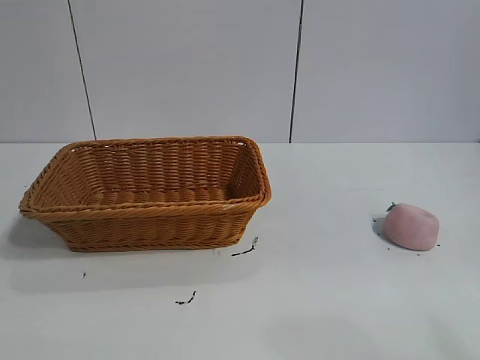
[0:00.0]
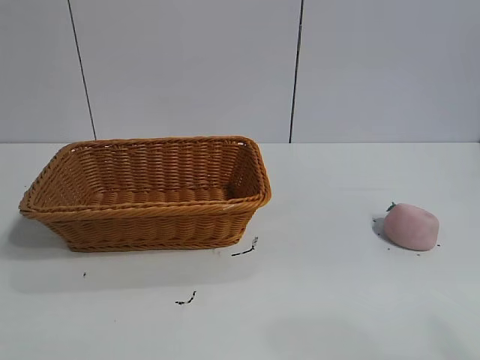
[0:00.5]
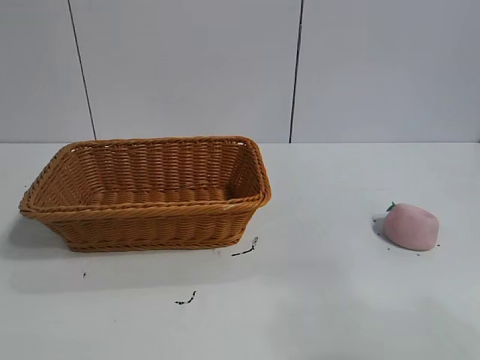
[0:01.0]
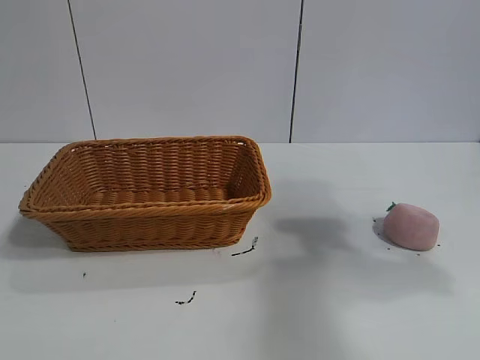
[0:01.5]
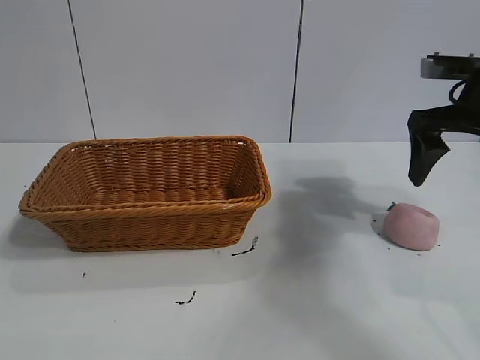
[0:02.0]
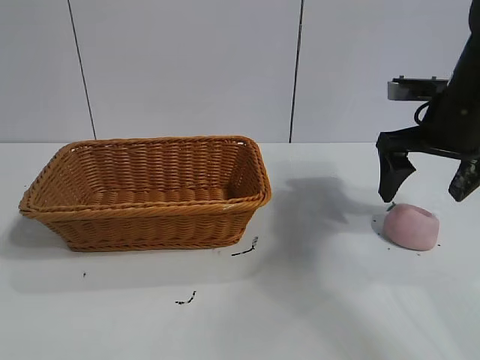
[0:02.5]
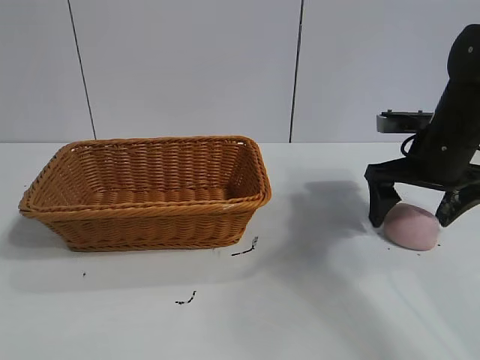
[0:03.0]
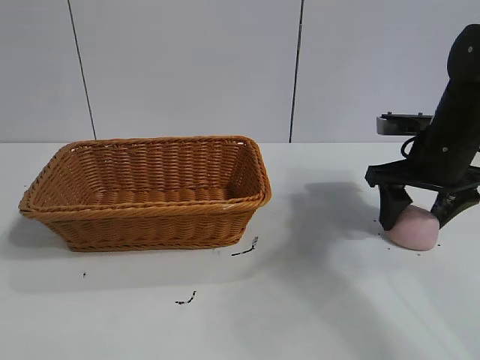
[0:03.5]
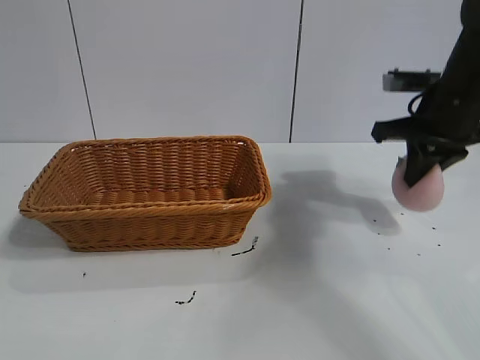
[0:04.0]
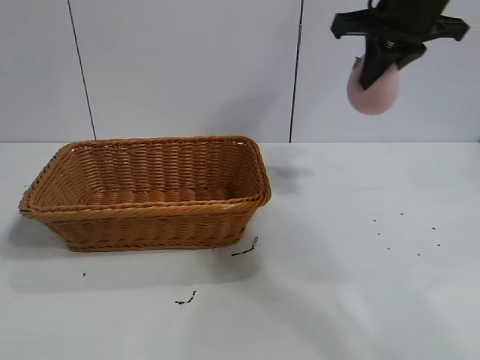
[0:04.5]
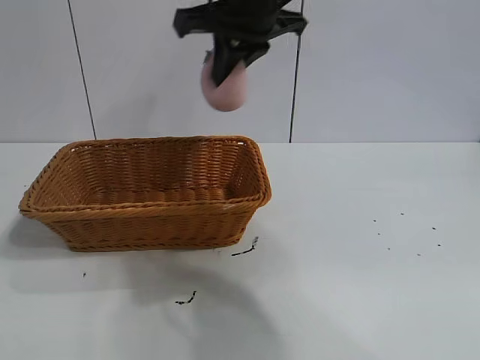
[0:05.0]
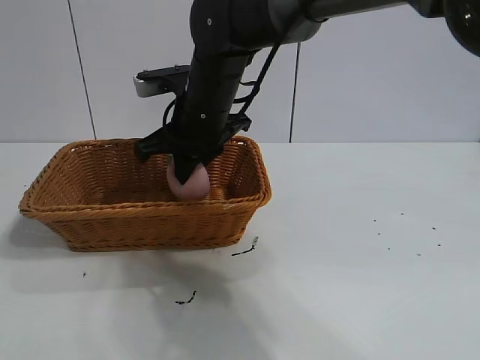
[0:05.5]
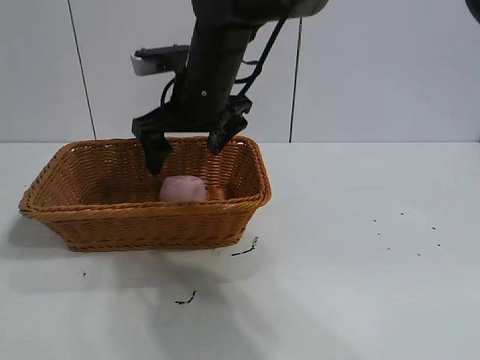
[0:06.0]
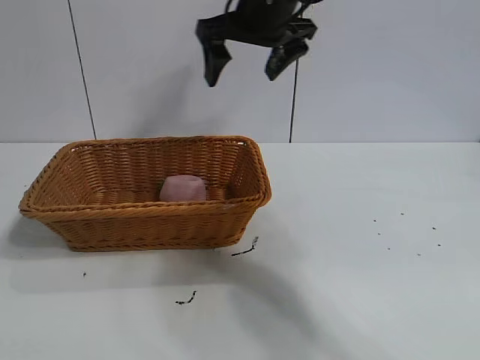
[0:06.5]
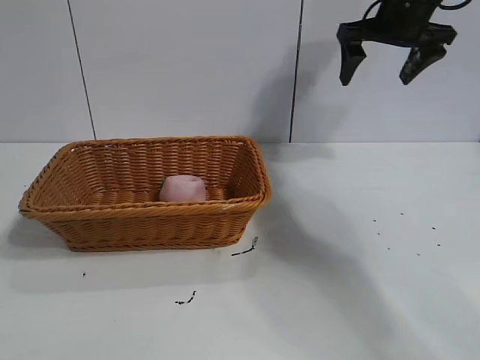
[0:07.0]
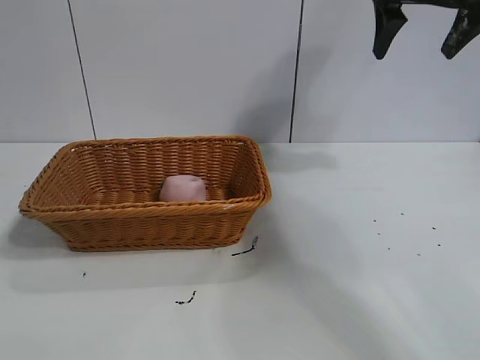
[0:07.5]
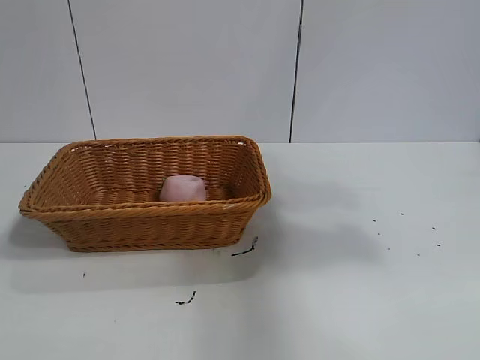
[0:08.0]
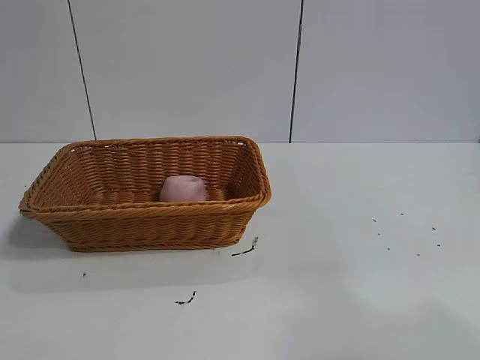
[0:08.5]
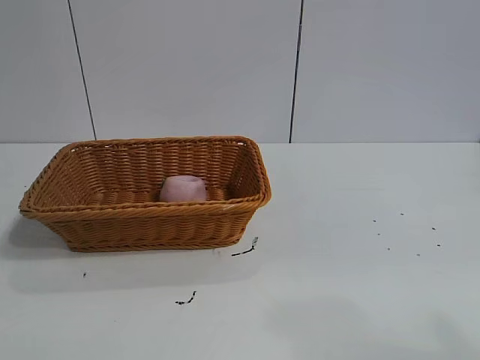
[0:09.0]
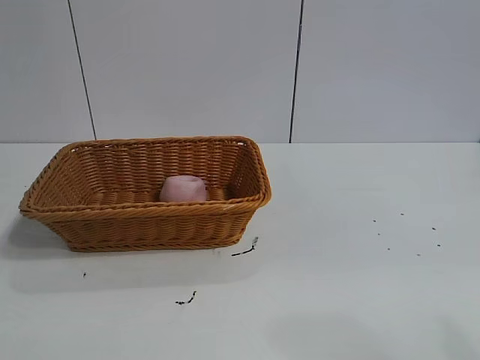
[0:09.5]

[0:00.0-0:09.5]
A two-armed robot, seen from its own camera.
Task of the whole recording: pick up the peach and put it into the basket.
Step, 0:01.0 to 0:03.5: Grasp the peach with right gripper.
Step, 0:04.0 to 0:05.5: Place the peach in the basket with right gripper.

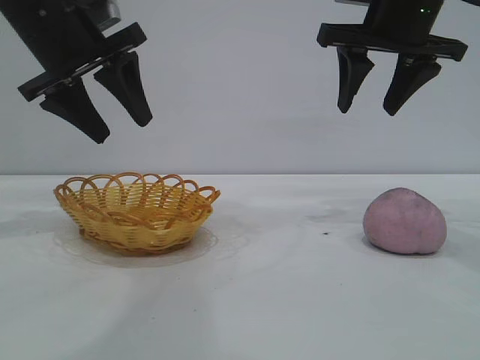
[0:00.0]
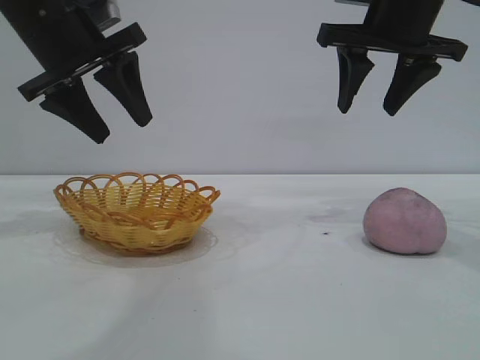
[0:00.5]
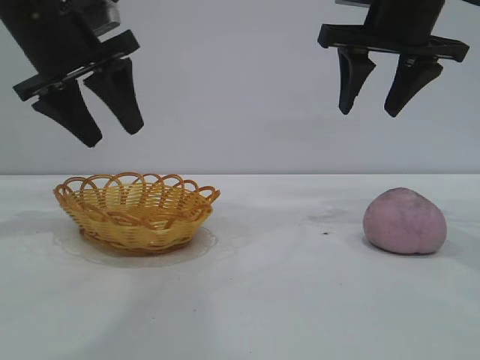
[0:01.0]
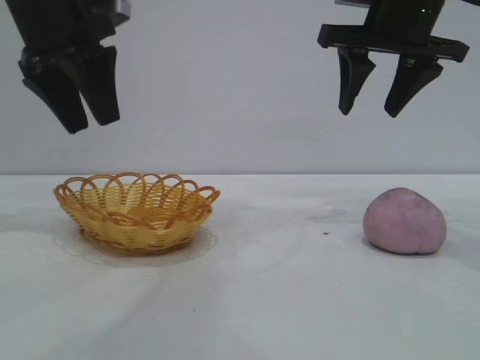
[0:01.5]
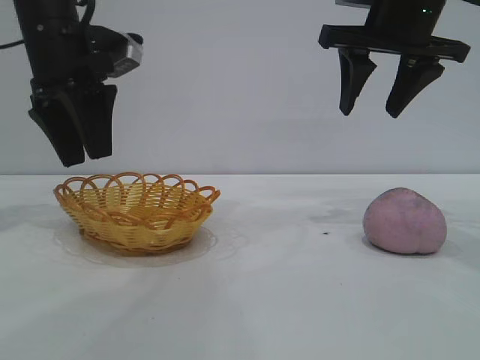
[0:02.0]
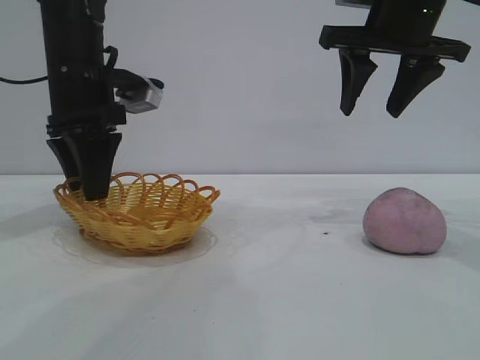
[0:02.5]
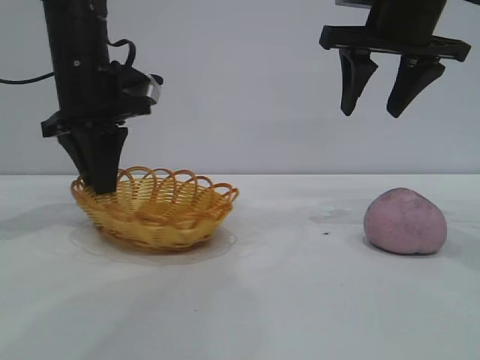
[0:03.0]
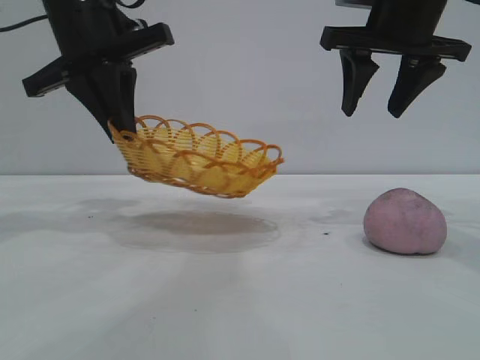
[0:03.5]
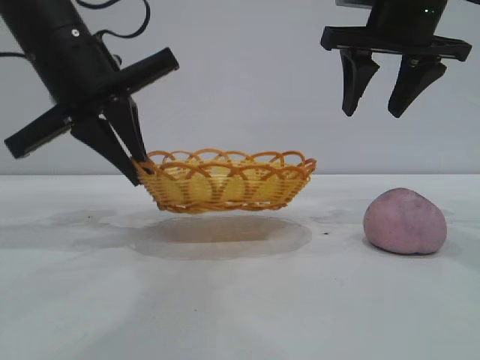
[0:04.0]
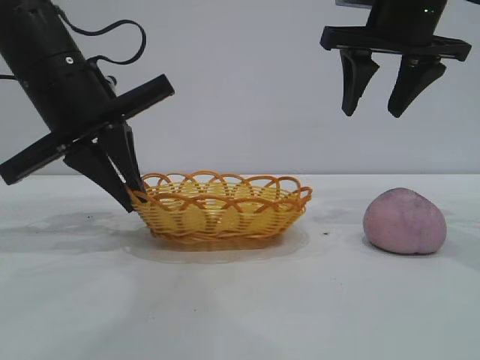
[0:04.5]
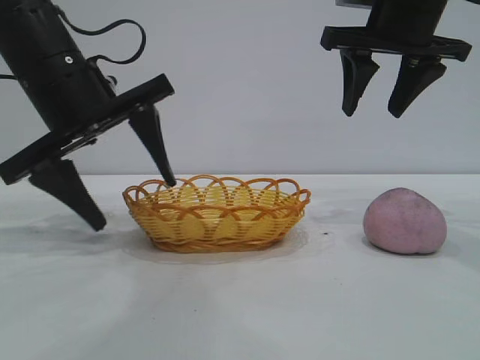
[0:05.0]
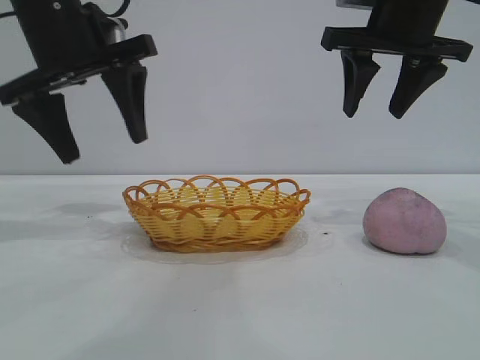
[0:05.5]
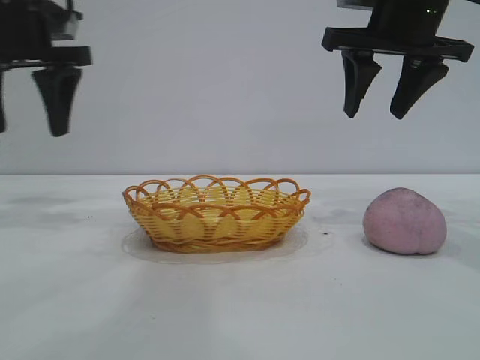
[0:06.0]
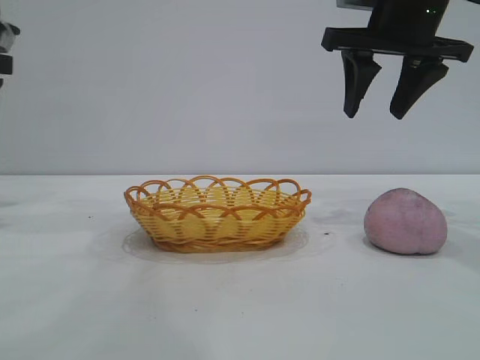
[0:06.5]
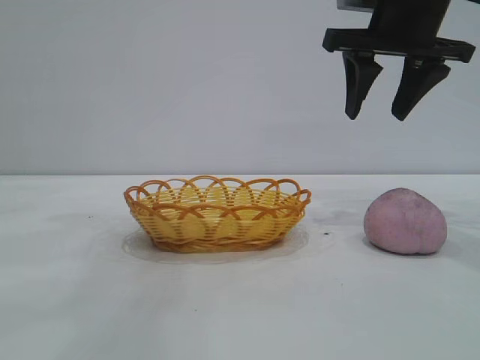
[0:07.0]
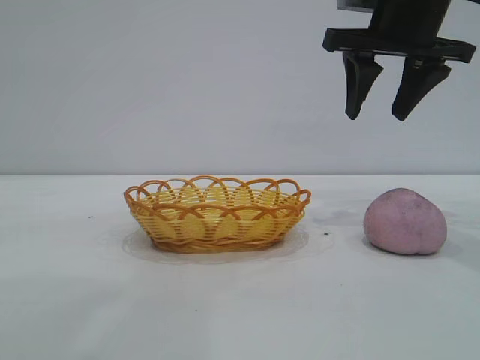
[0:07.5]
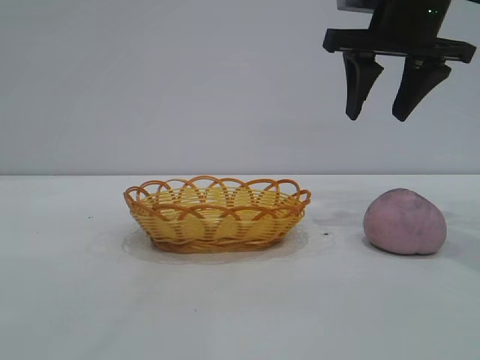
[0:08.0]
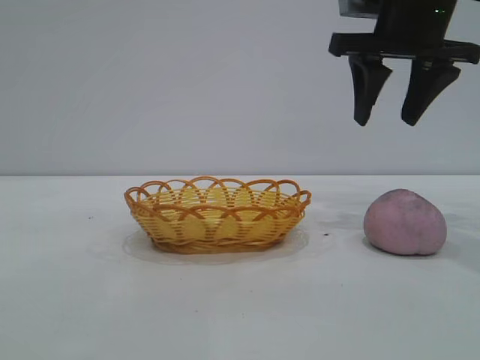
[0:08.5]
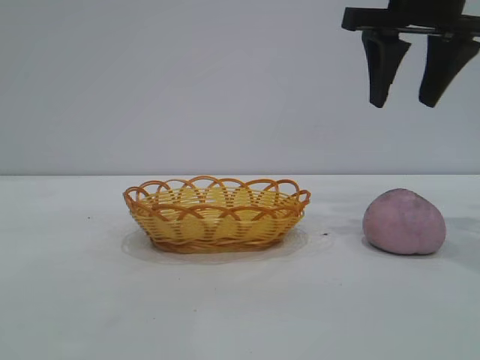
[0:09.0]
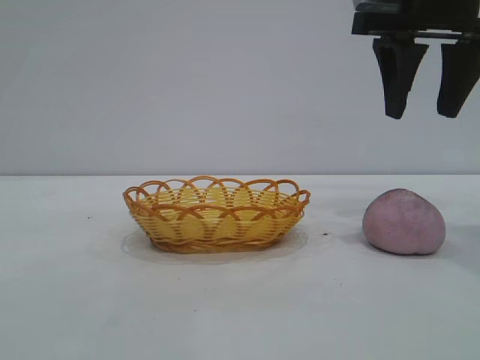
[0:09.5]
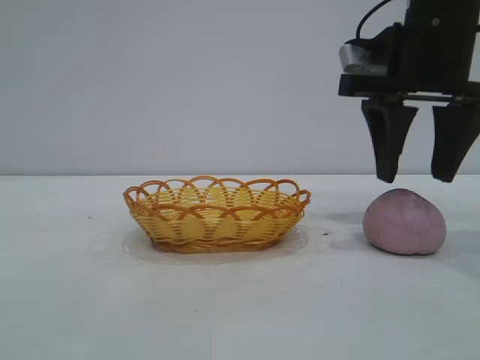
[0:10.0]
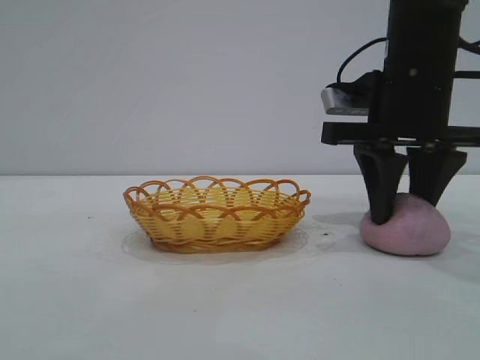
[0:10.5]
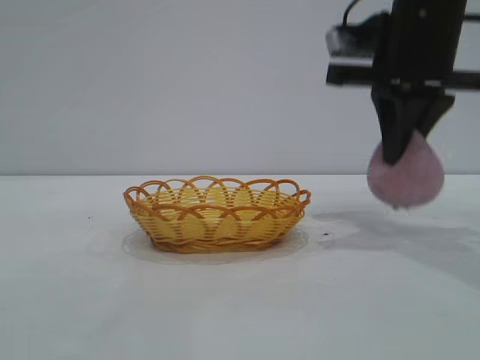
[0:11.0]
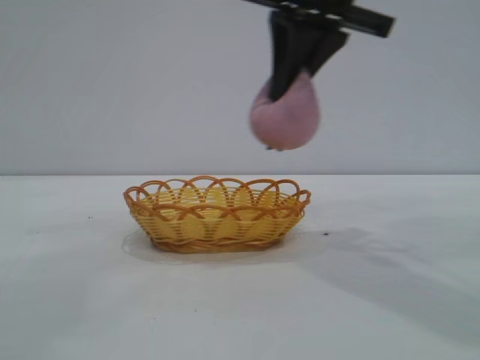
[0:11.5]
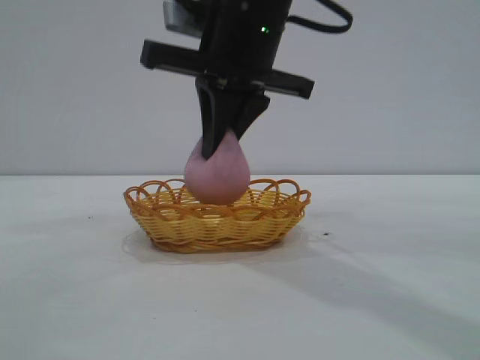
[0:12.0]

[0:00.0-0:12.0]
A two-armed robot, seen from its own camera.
Task of the whole recording: pick up the peach and put it into the basket.
Step, 0:00.0 to 0:05.5: Move the basket to the center of view.
Step, 0:06.0 to 0:11.0: Pick up the peach.

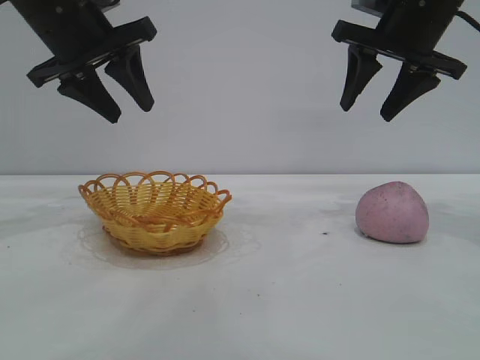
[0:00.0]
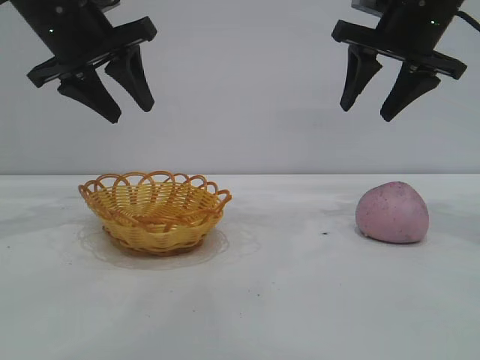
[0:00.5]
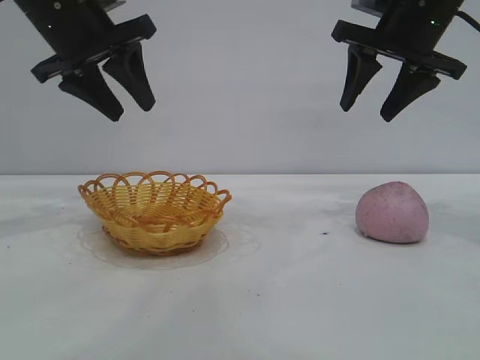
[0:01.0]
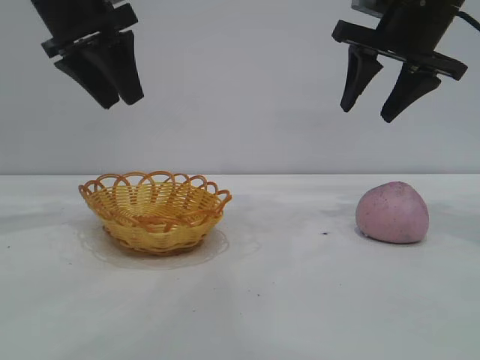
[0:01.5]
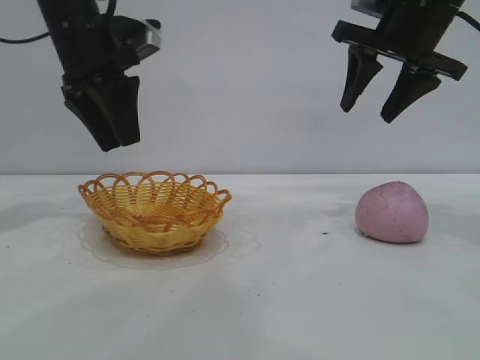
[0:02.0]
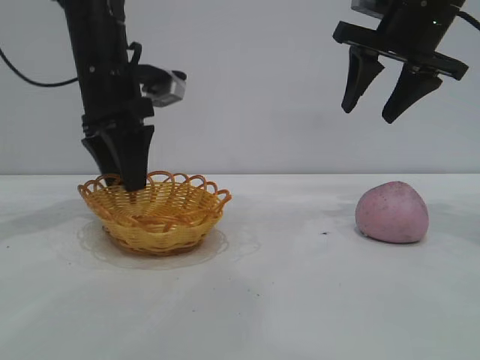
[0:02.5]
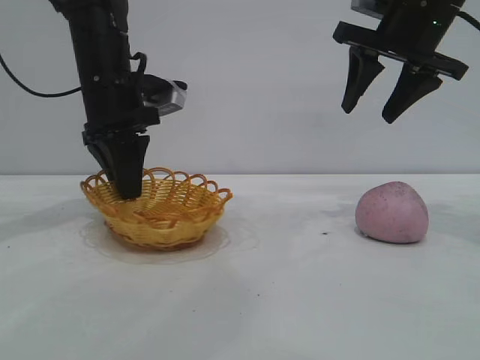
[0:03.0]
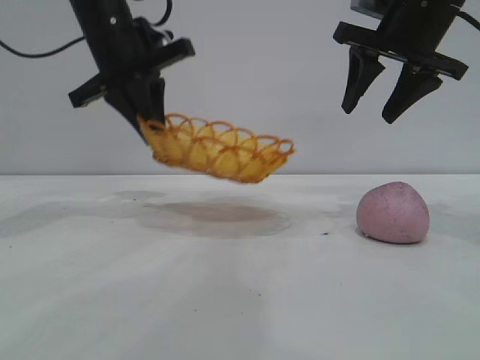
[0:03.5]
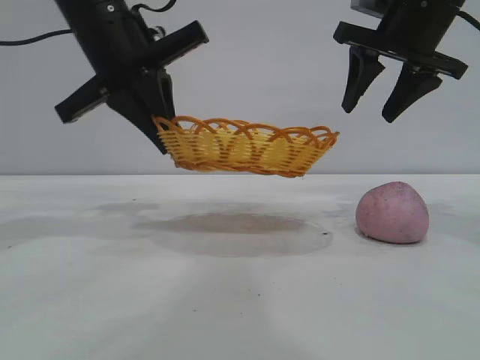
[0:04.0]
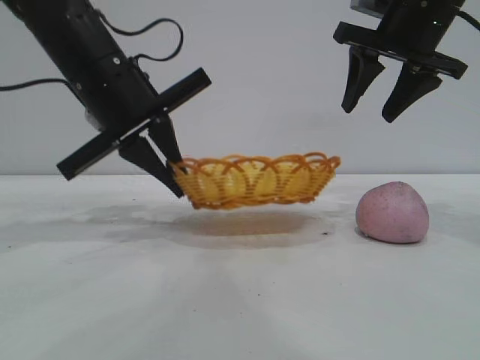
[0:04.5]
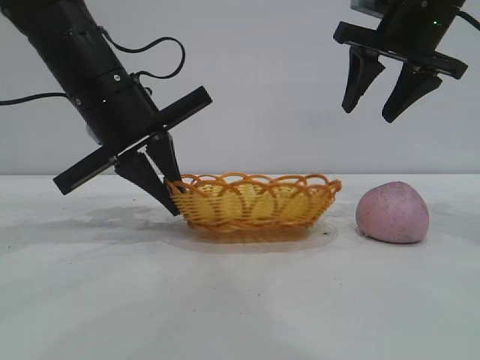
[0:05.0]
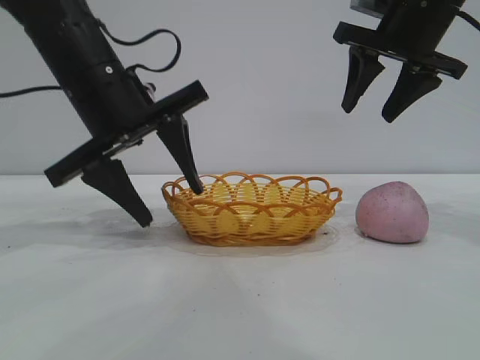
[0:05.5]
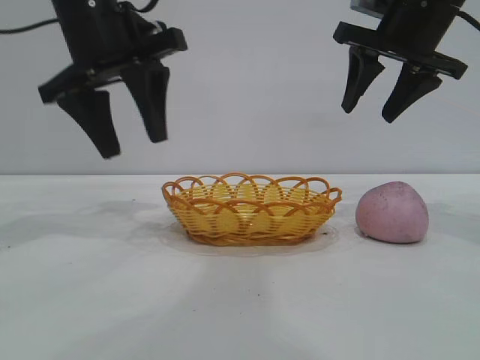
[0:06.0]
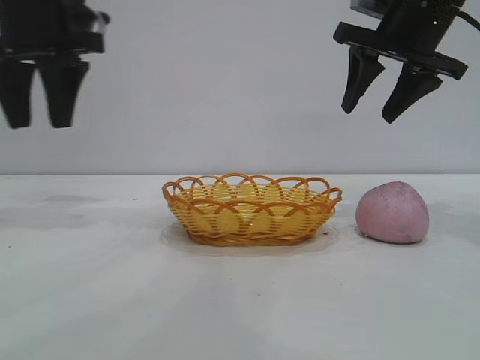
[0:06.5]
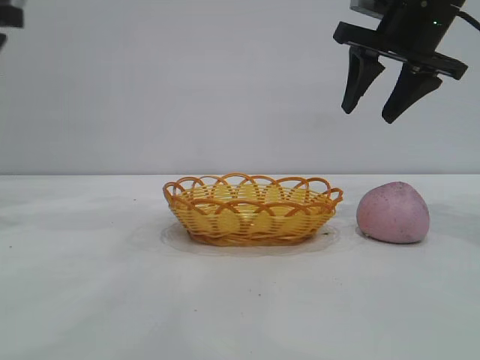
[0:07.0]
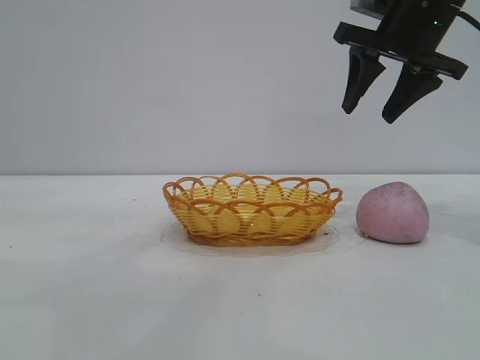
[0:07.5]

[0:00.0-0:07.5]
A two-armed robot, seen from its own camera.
Task of the whole recording: pick up the peach and put it into the basket.
Step, 0:00.0 to 0:06.0: Move the basket to the center of view.
